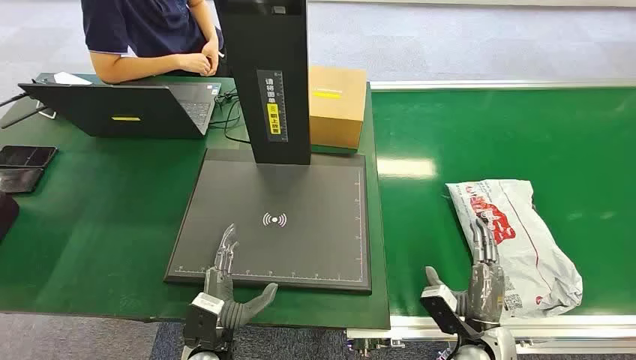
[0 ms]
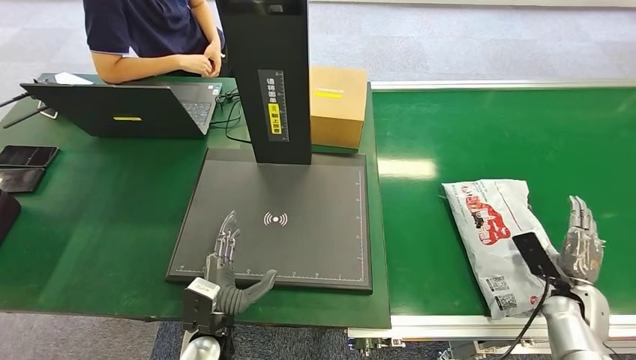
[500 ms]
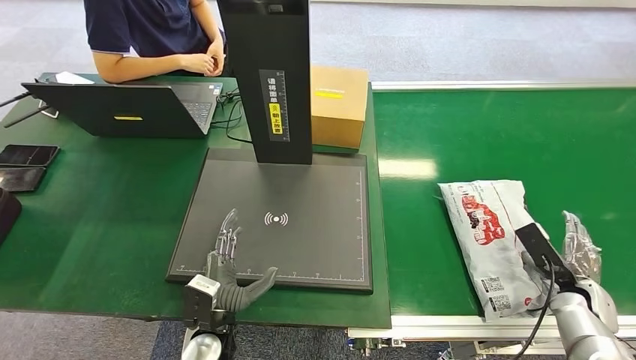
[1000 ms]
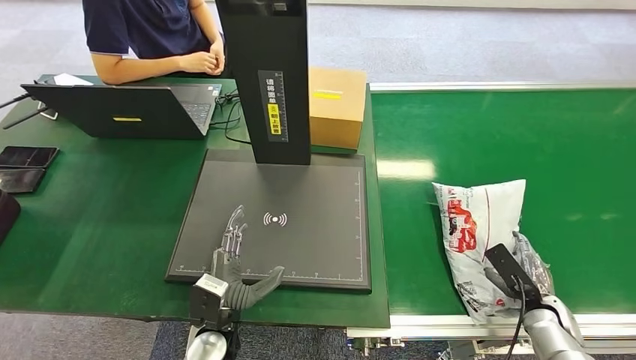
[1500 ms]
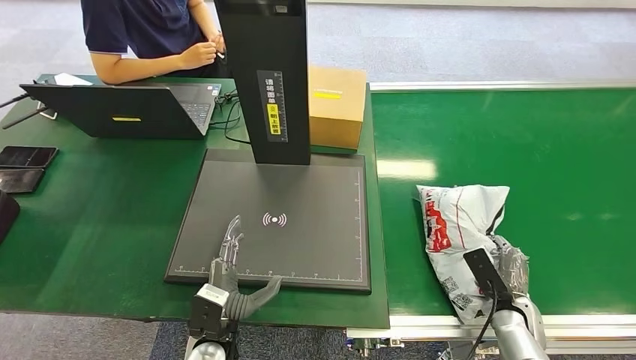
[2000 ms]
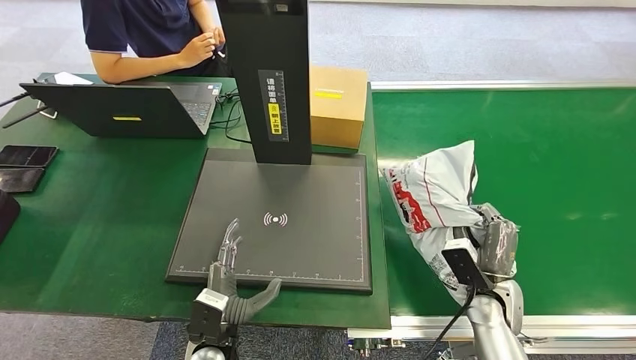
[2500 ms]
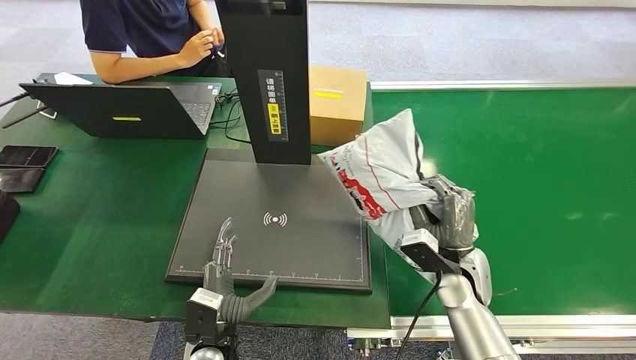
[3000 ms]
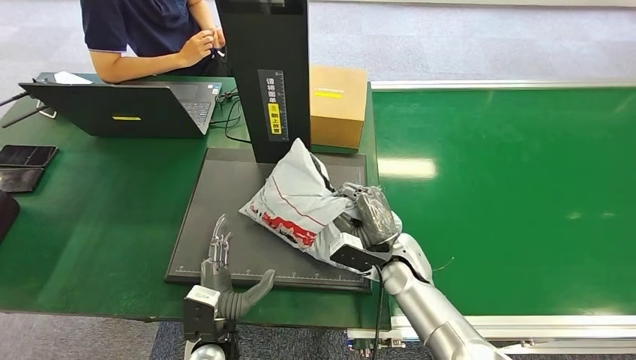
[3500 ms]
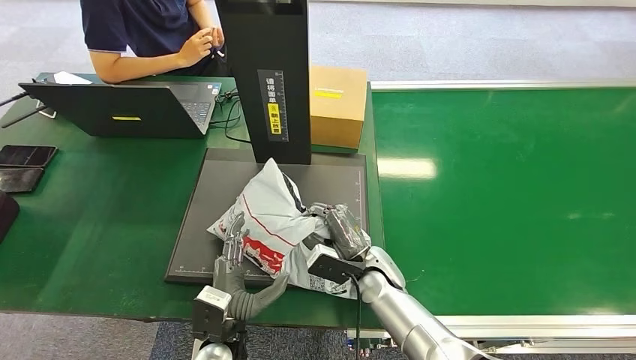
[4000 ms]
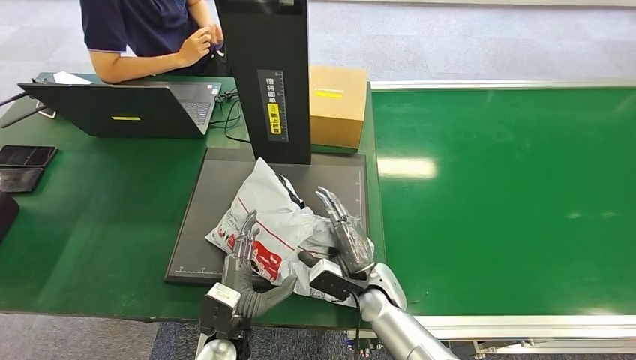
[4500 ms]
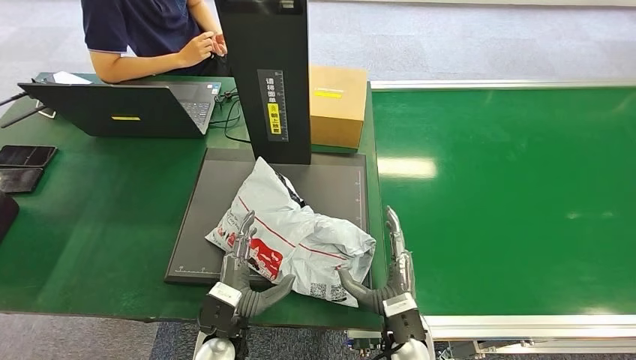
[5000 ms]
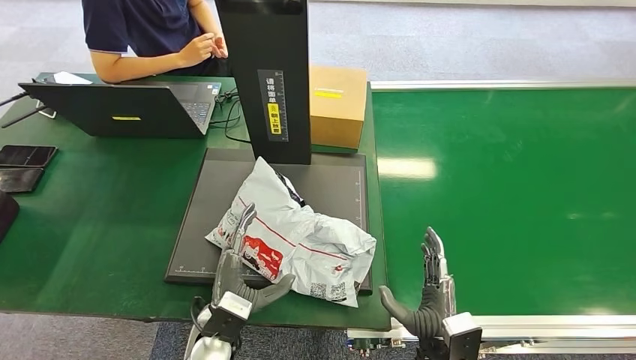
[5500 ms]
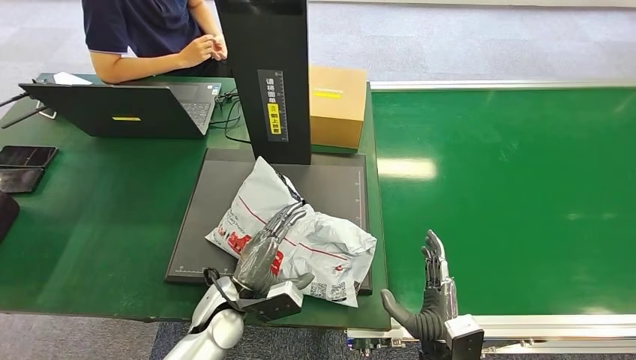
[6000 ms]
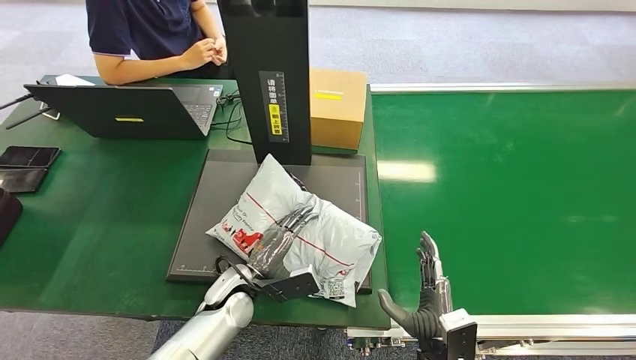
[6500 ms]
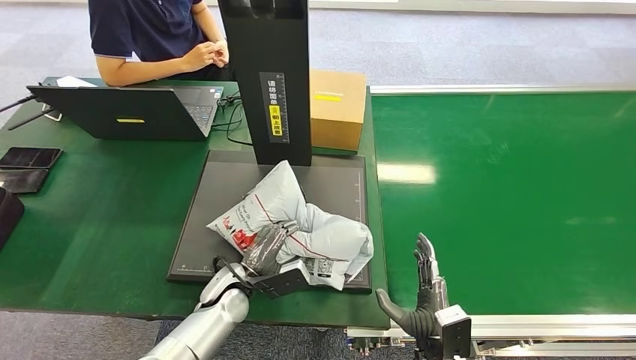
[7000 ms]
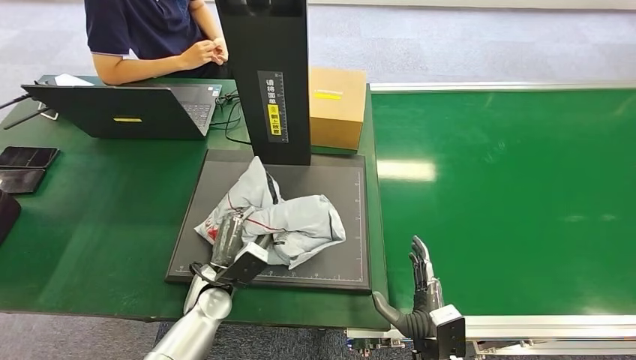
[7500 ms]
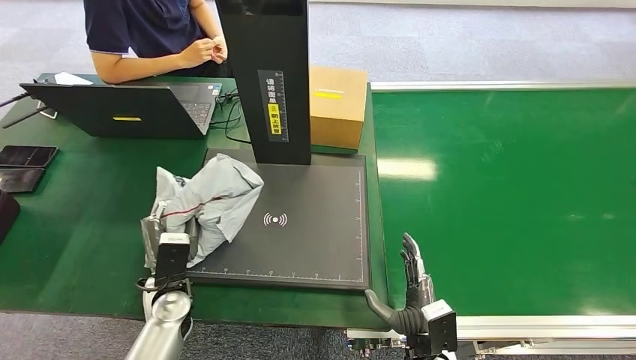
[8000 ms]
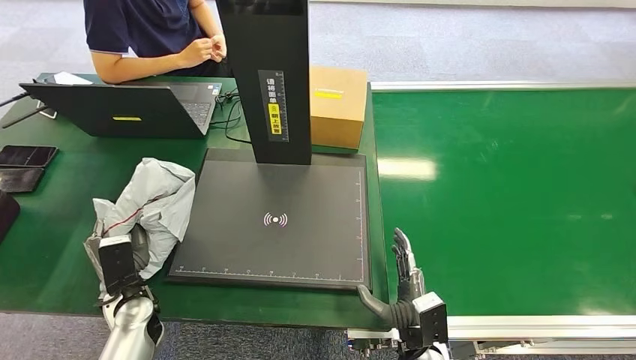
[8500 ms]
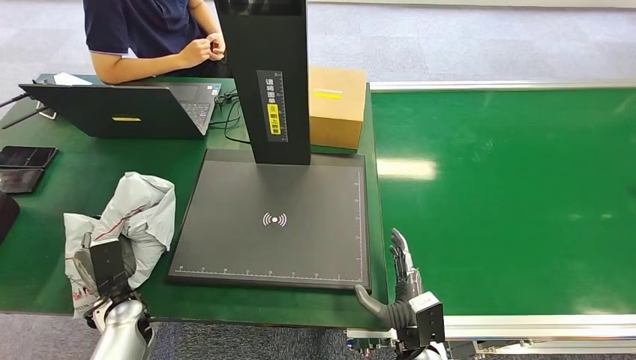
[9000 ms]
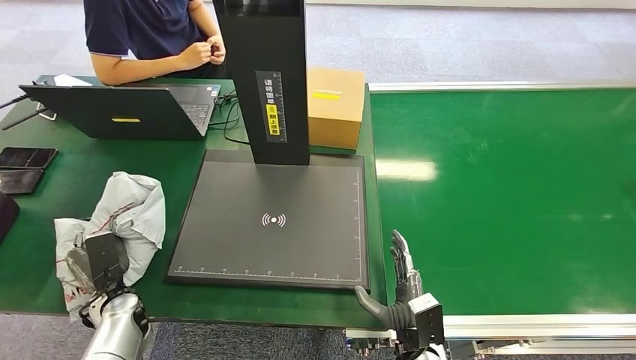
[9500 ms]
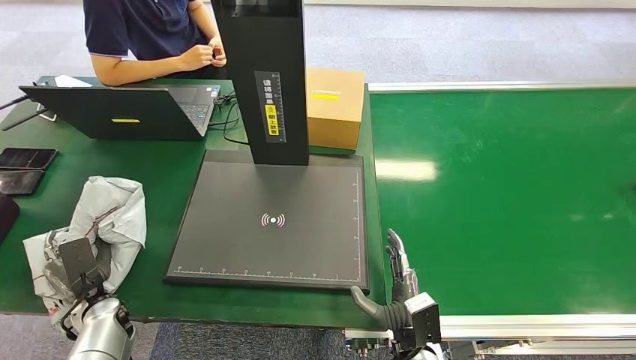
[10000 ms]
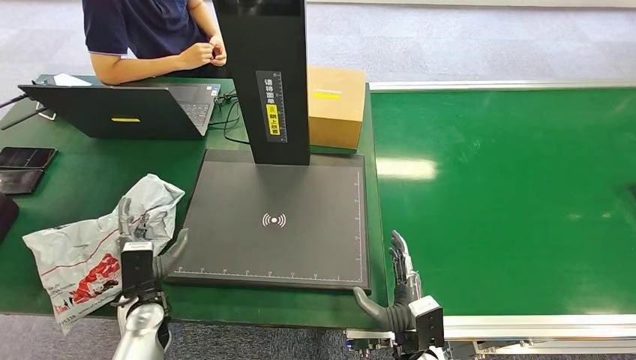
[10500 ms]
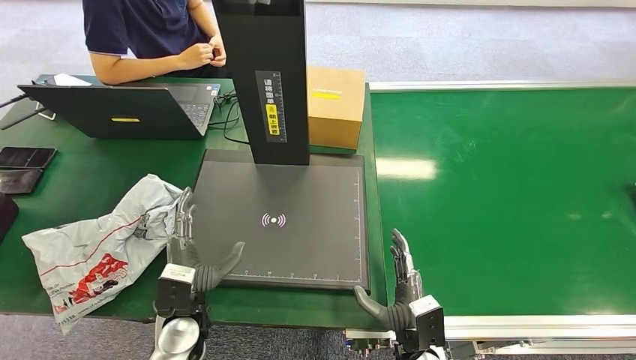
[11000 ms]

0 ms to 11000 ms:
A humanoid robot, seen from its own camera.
Step, 0 ms to 3000 ms: Pick up the package from the conveyor belt.
Step, 3500 ms to 5500 ms: Place the package onto the inbound machine.
Step, 6000 ms to 8000 ms: Pick up the package from the inbound machine.
Step, 8500 ms to 11000 ms: Place the package into the parcel locker.
2000 ms to 3500 ms: The right hand moves to the left and upward, about 25 cm.
3500 ms to 5500 ms: The right hand heads backward, covering about 15 cm.
5500 ms to 7500 ms: The left hand heads forward, covering approximately 10 cm.
7500 ms to 9000 ms: The left hand is displaced to the left by about 20 cm.
9000 ms to 11000 ms: The left hand is displaced to the right and upward by roughly 15 cm.
